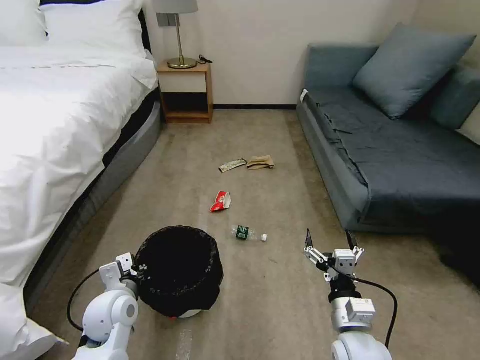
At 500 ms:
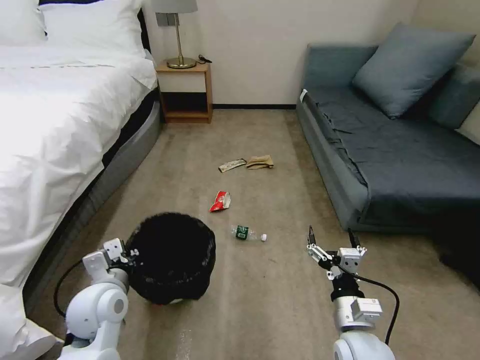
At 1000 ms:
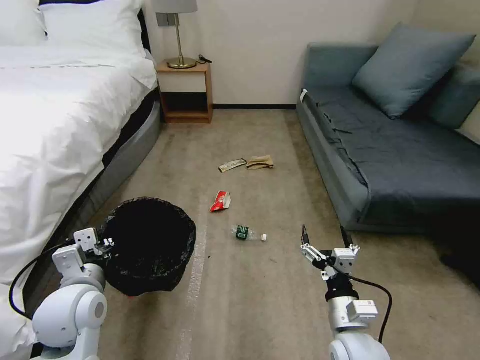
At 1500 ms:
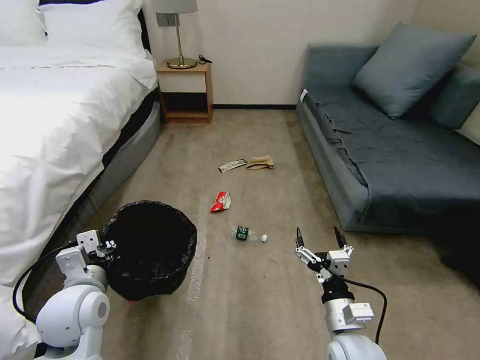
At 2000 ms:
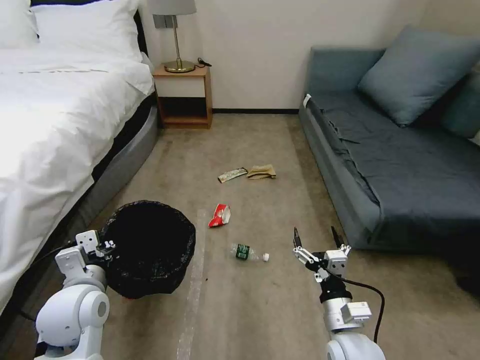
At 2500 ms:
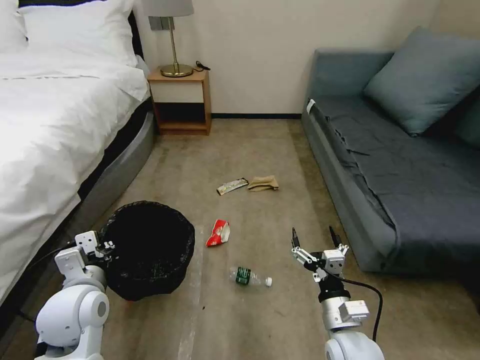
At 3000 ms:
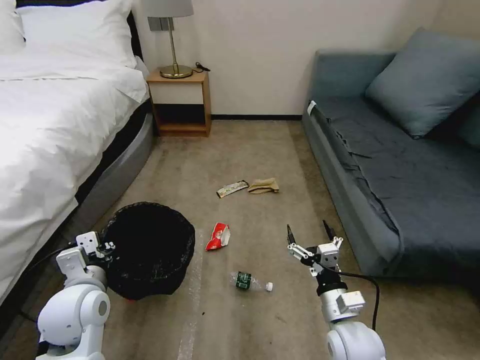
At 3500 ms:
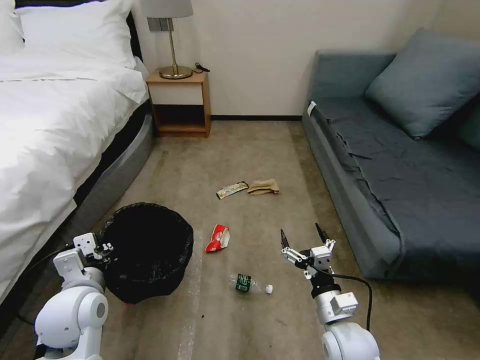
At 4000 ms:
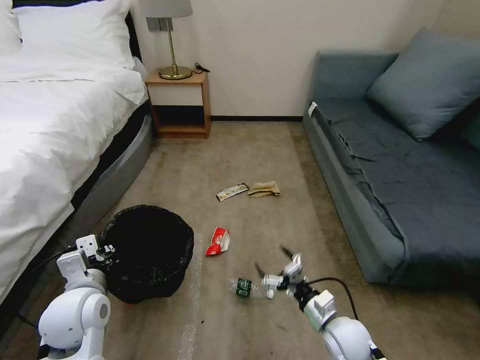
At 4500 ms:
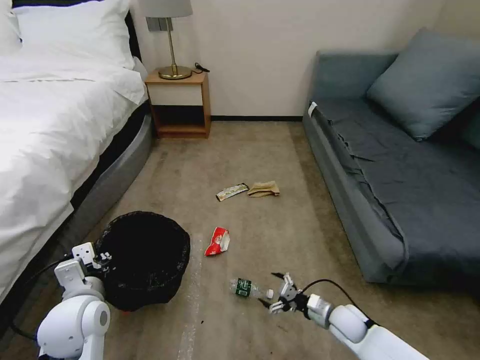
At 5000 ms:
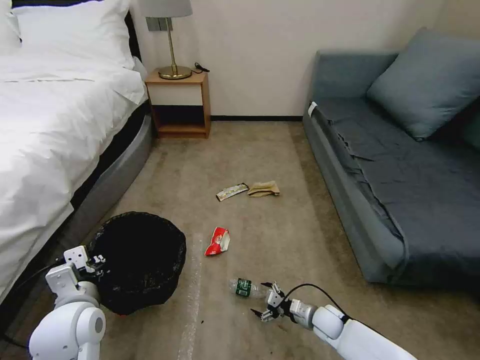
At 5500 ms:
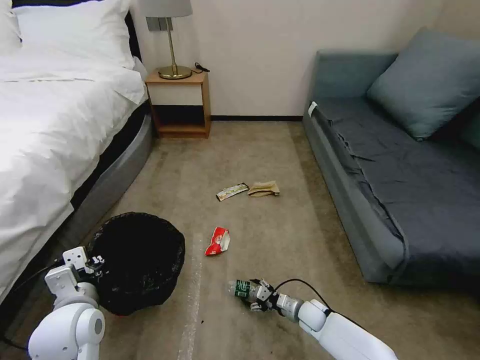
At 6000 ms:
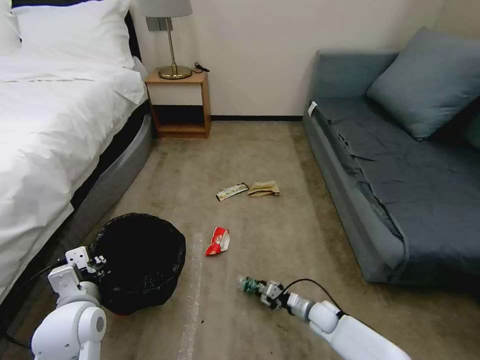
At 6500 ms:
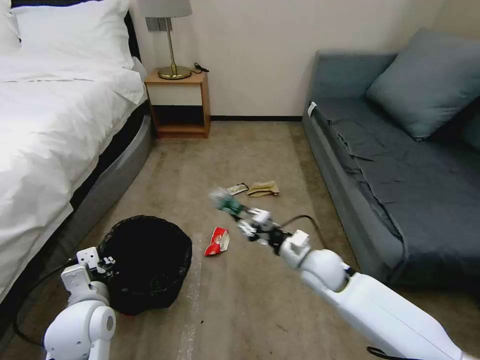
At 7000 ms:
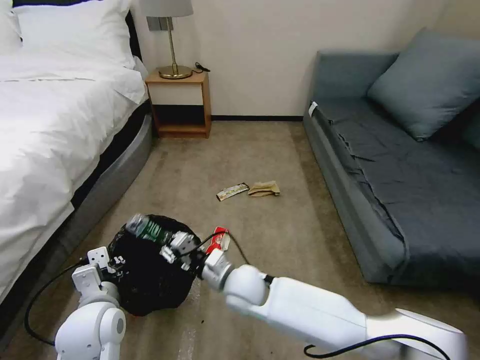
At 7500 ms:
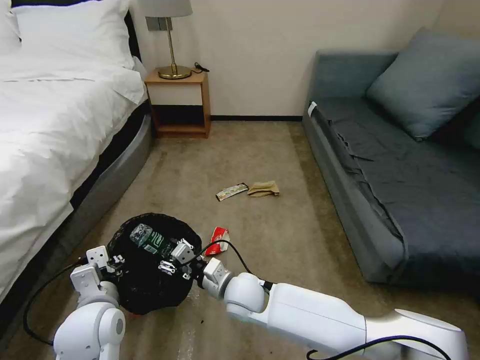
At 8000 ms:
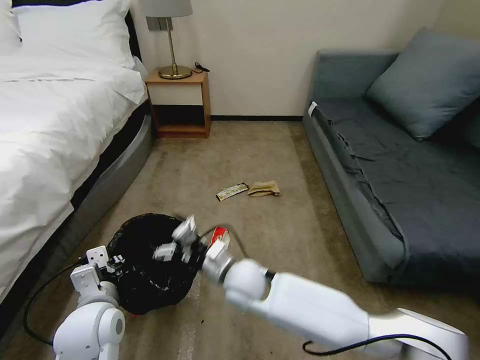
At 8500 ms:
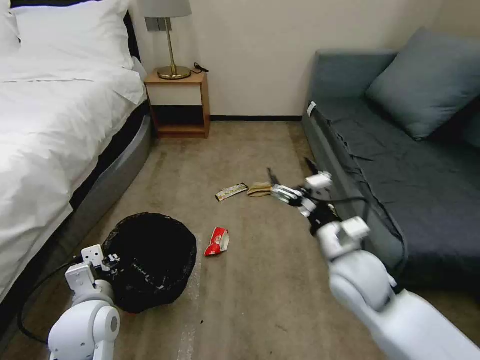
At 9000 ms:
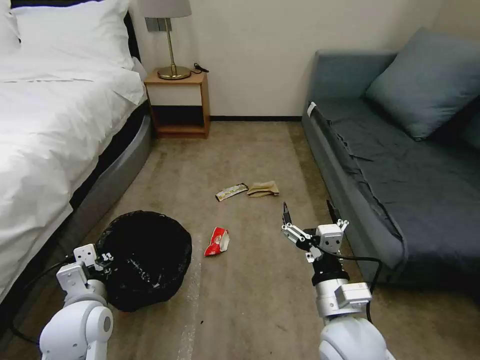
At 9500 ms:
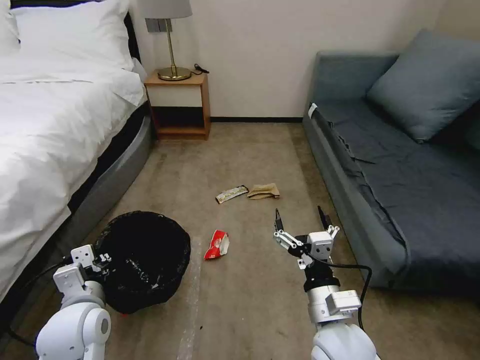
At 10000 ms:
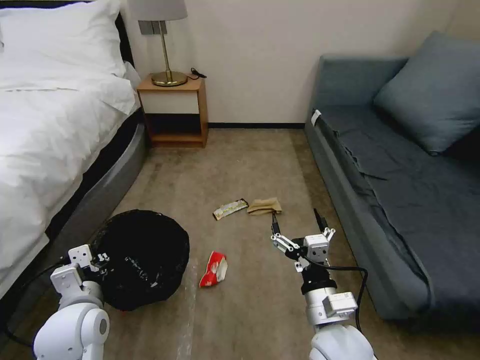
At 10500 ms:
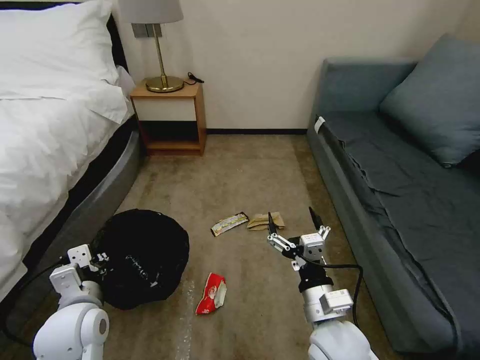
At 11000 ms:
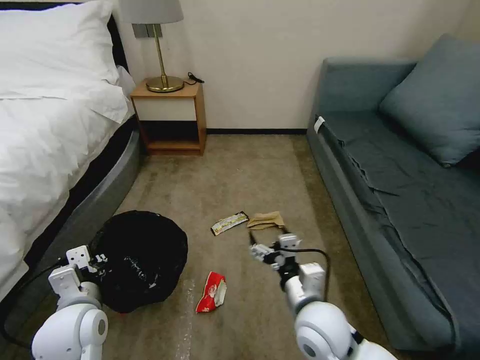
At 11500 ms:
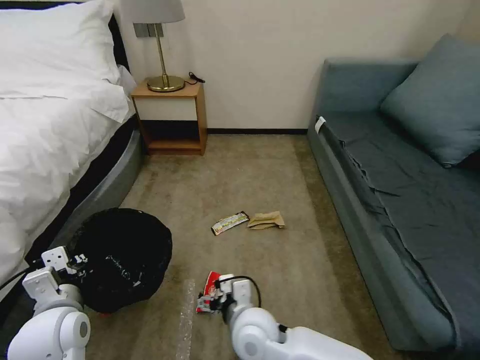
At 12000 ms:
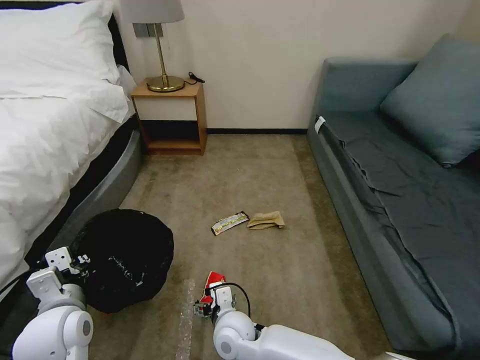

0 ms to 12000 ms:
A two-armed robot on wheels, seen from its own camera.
Task of the whole recording: Pick up the trash bin, then pick up the garbage on the floor and place it into the trash bin.
0 ms to 2000 ms: The left gripper is displaced upward by roughly 10 cm.
2000 ms to 4000 ms: The right gripper moves downward, roughly 10 cm.
4000 ms to 6000 ms: The right gripper travels downward and forward by some 15 cm, and closes up.
6000 ms to 8000 ms: The right gripper shifts some 35 cm upward and to the left, and opens up.
8000 ms to 10000 ms: The right gripper shifts approximately 20 cm to the right and backward.
10000 ms to 12000 ms: The right gripper shifts approximately 20 cm to the left and downward.

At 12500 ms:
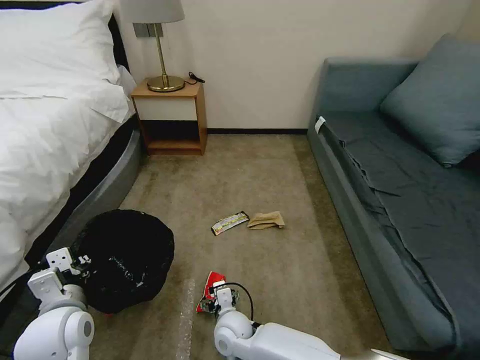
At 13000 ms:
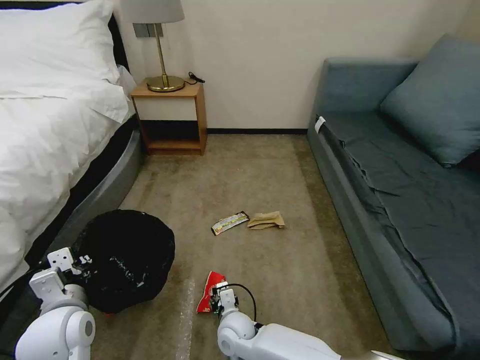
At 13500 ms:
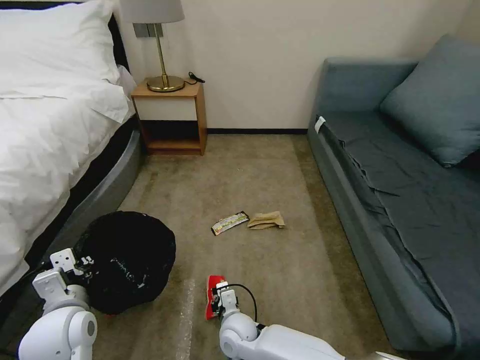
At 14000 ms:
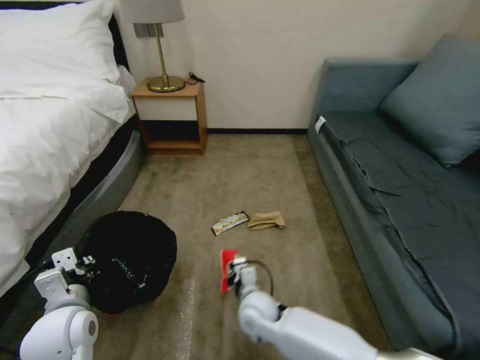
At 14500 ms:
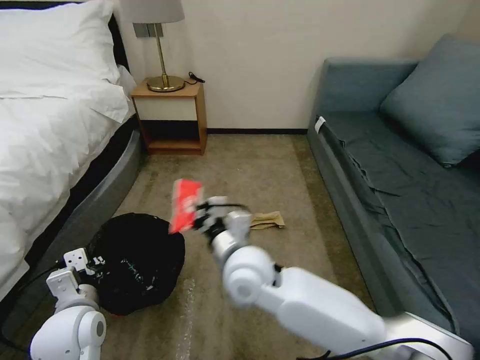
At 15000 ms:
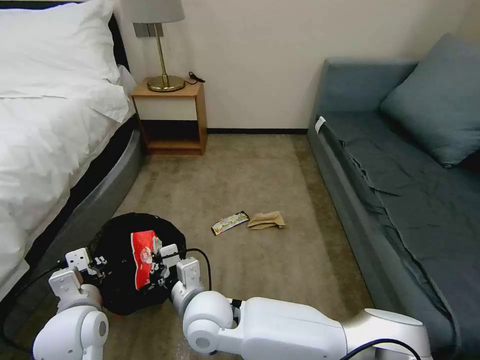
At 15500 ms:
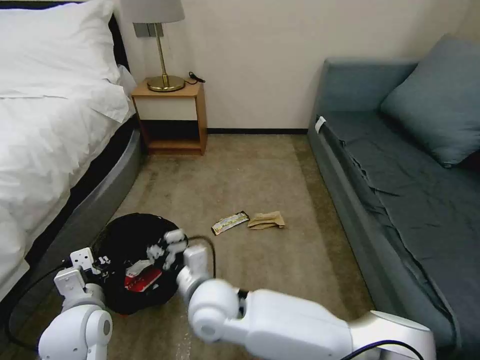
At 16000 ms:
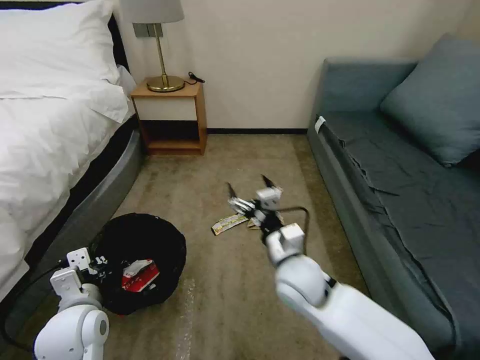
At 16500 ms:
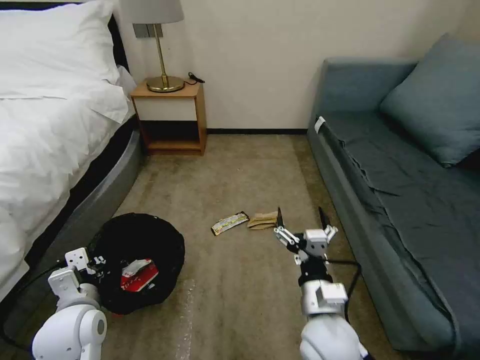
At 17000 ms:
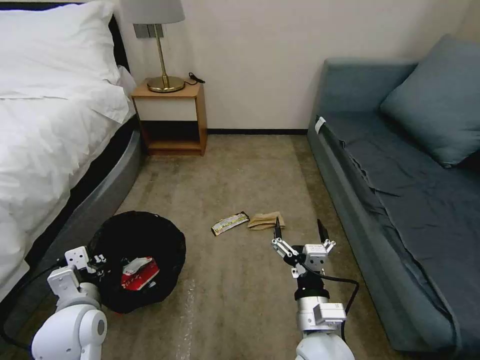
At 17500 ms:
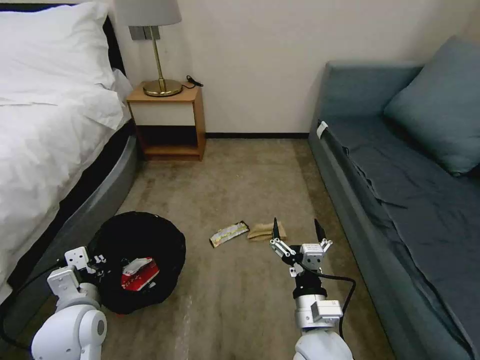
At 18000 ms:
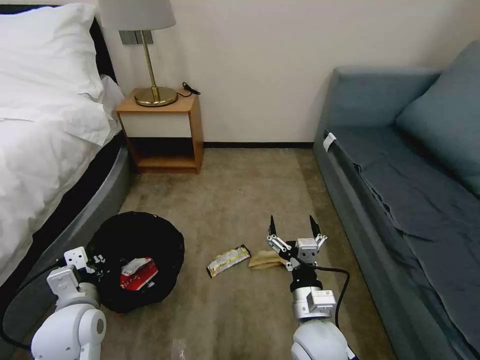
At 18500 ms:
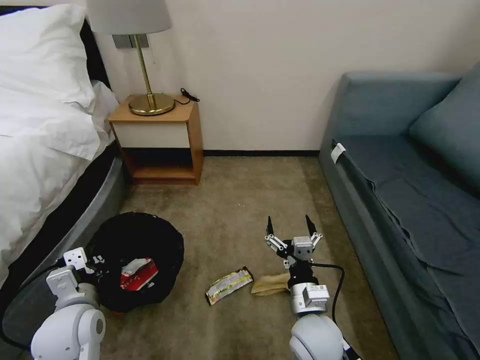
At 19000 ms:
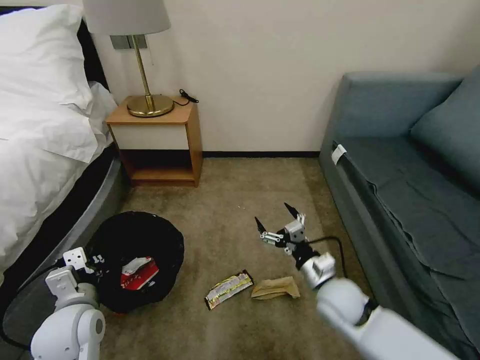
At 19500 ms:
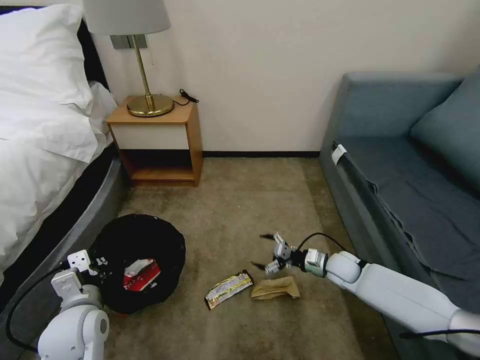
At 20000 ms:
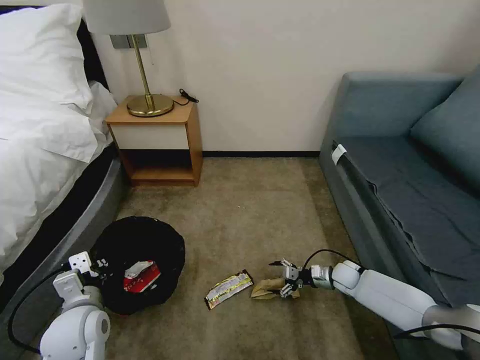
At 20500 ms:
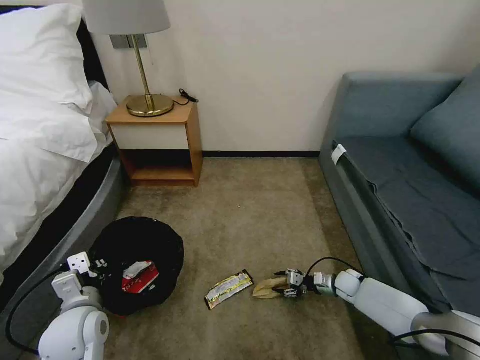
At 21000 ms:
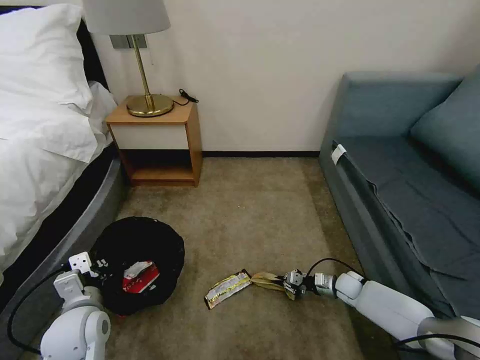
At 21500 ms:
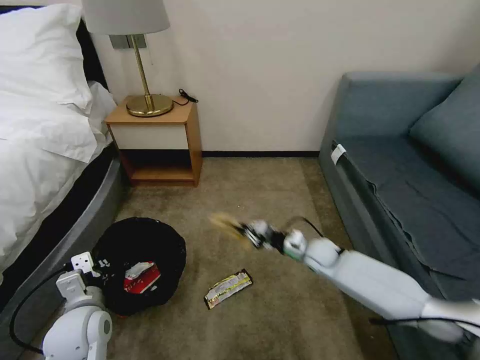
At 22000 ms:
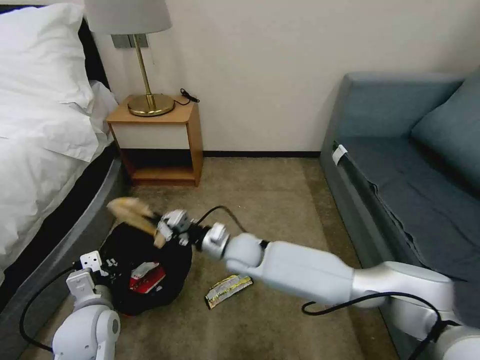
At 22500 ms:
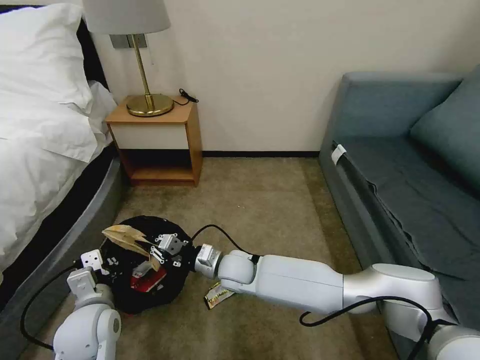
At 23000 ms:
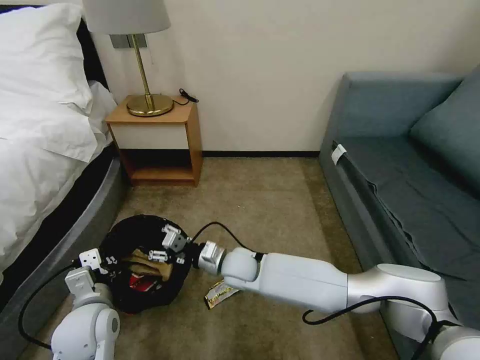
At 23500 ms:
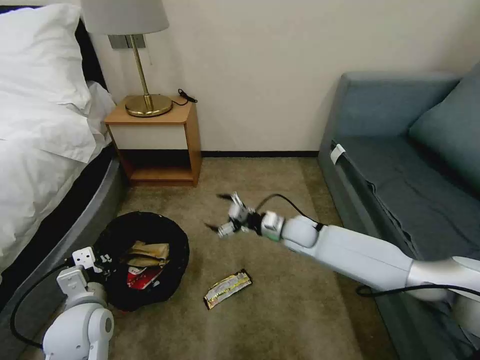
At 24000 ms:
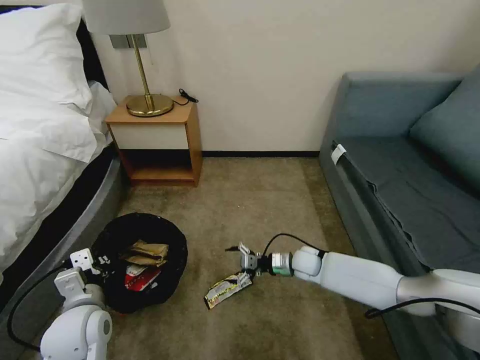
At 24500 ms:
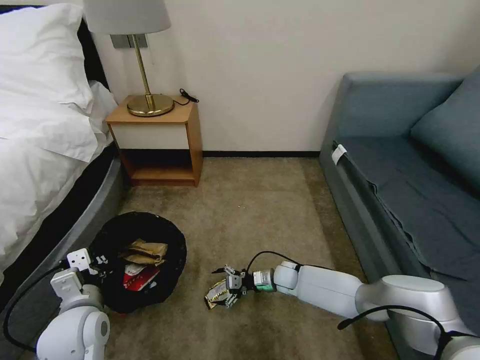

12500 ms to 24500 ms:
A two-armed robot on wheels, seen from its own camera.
Task of the whole recording: Pick up the trash bin, then pick up the garbage on the floor and place it into the trash bin.
12500 ms to 14500 ms: The right gripper is displaced upward by approximately 25 cm, and closes.
14500 ms to 16500 ms: The right gripper shifts about 20 cm to the right, backward and downward, and opens its fingers.
18500 ms to 20500 ms: The right gripper travels to the right, downward and forward by about 35 cm, and closes its fingers.
20500 ms to 22500 ms: The right gripper travels to the left and upward by about 40 cm, and closes its fingers.
22500 ms to 24500 ms: The right gripper goes about 25 cm to the right and downward, and opens its fingers.

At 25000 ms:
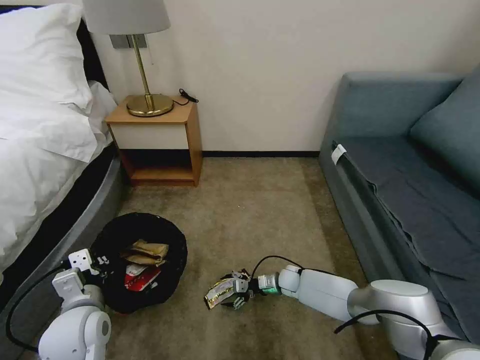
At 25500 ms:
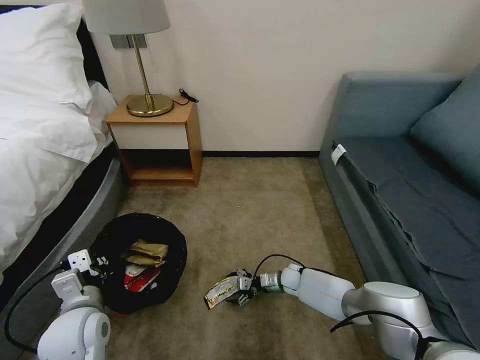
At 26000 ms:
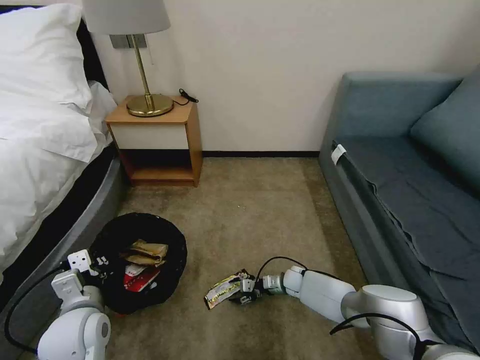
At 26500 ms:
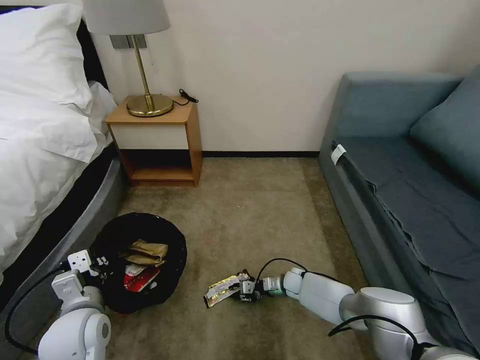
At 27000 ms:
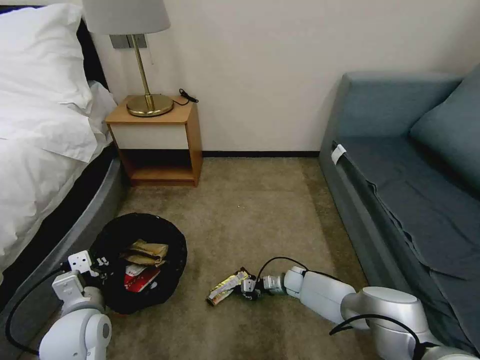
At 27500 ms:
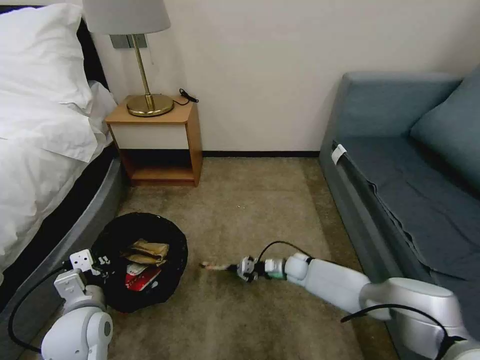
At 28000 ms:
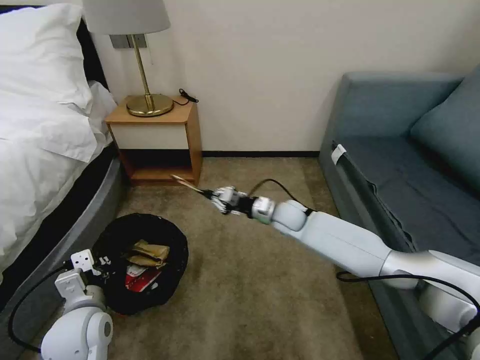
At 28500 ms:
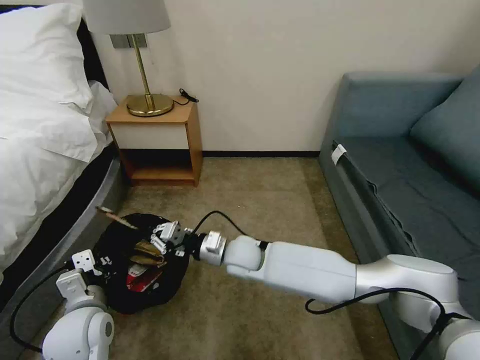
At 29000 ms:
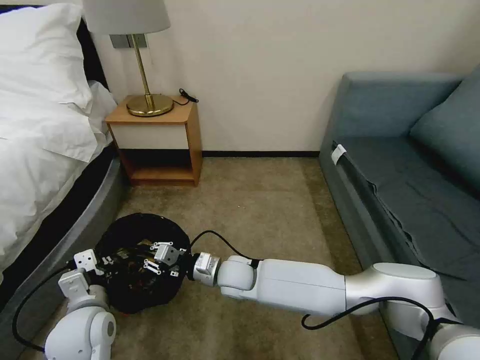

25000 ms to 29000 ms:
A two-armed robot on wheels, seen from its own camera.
Task of the whole recording: Pick up the trash bin, then pick up the garbage on the floor and place it into the trash bin.
25000 ms to 27000 ms: The right gripper closes up.
27000 ms to 29000 ms: The right gripper moves to the left and upward, approximately 30 cm.
